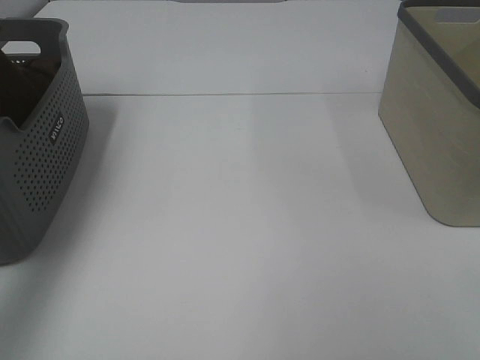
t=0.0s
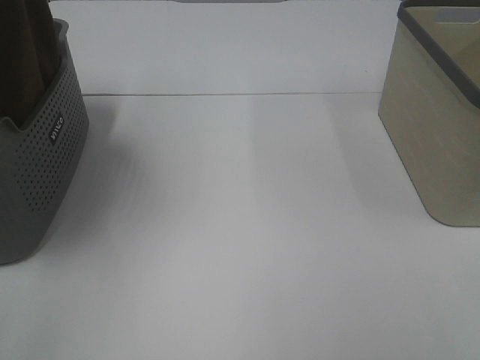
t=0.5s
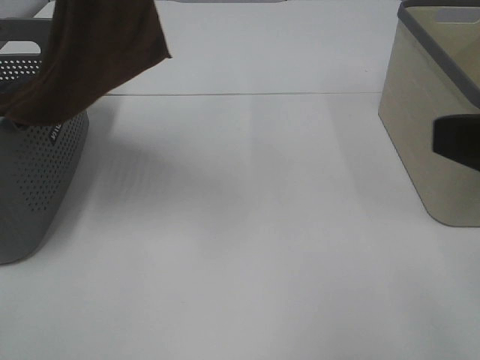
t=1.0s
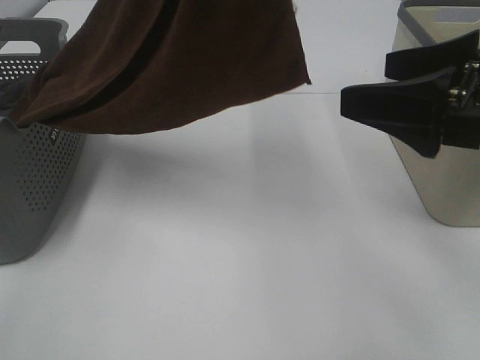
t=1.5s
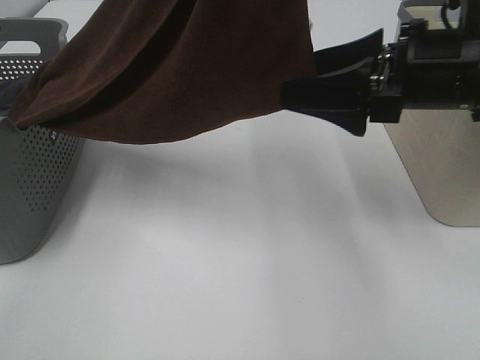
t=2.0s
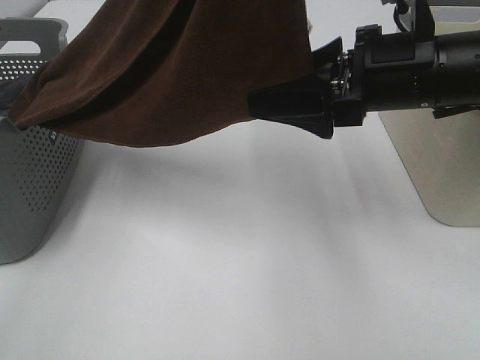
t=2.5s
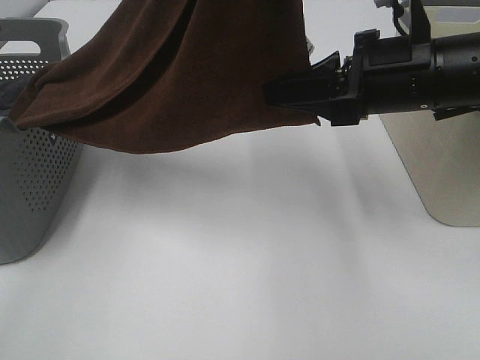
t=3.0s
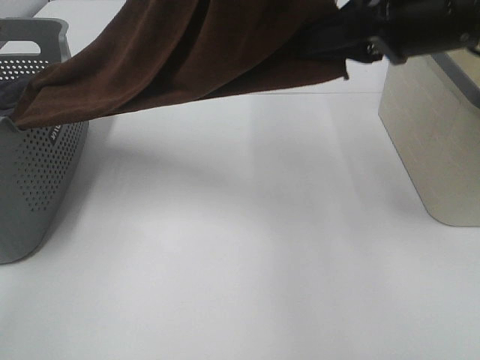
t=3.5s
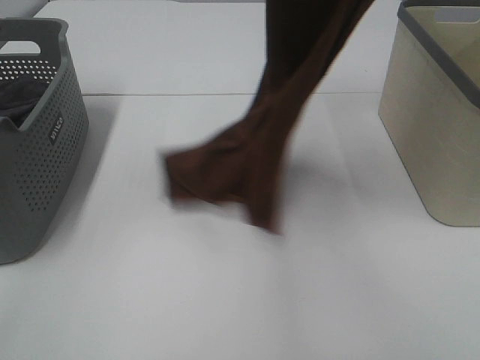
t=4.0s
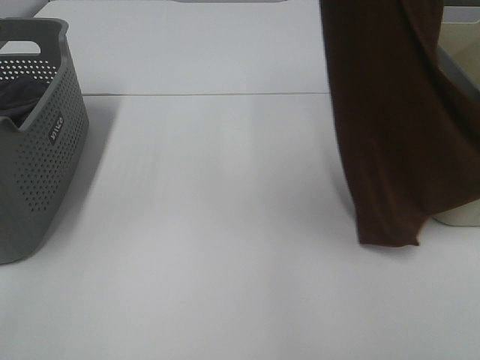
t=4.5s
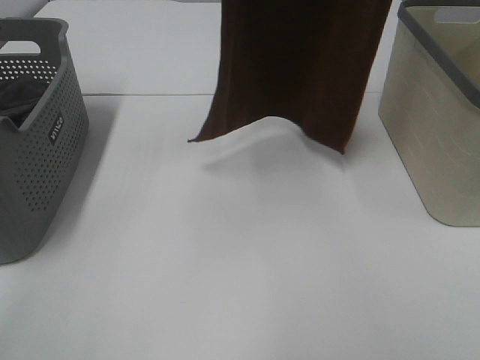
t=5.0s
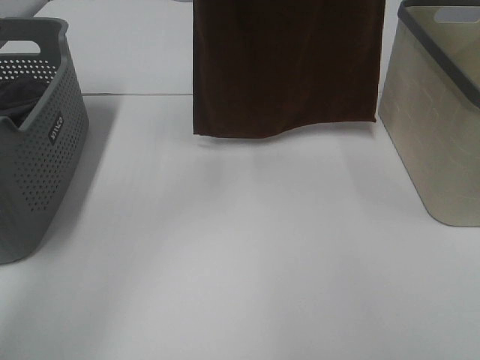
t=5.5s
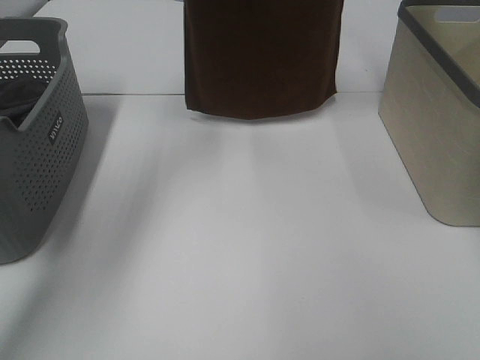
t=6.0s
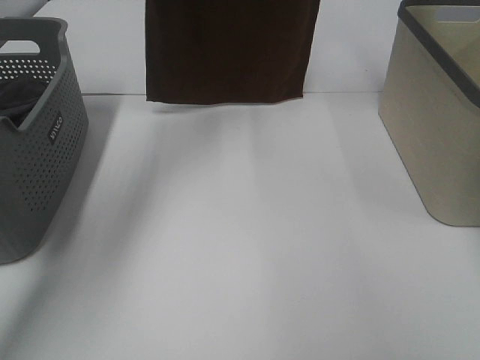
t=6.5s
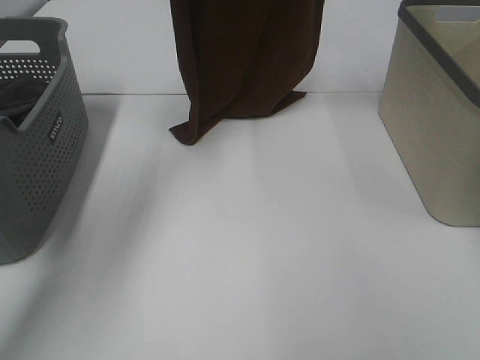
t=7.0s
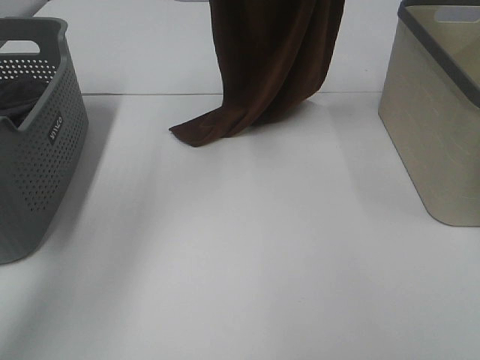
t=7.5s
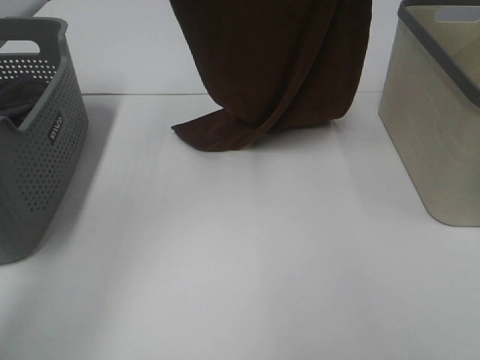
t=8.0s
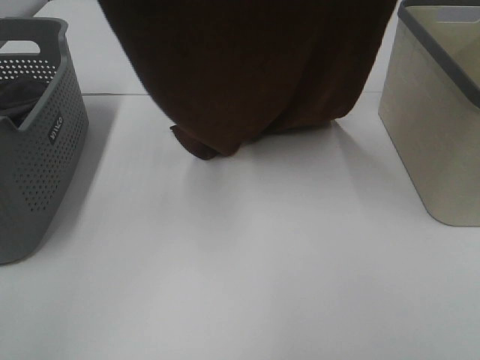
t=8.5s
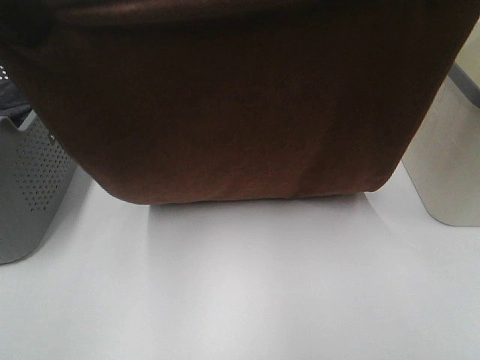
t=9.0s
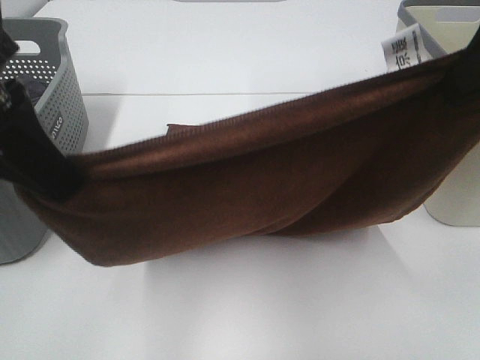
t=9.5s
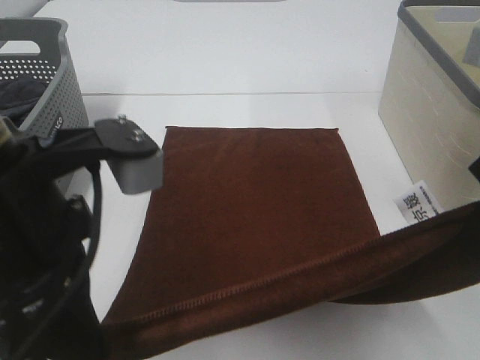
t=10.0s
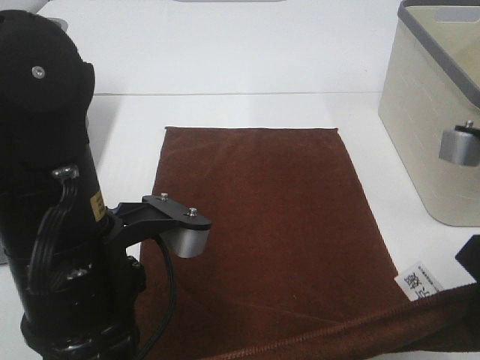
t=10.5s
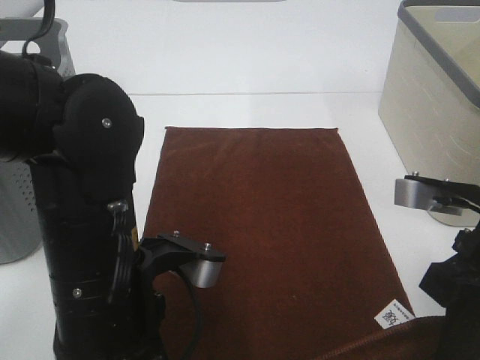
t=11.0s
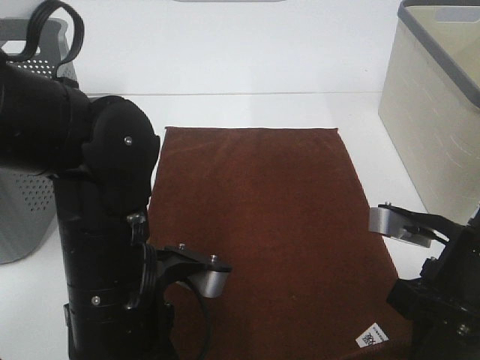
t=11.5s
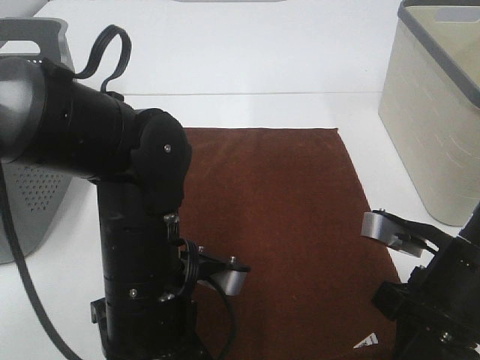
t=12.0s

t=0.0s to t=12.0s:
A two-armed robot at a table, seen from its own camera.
Task of the whole recording: Remove the towel and place it.
Step, t=0.0s to t=2.0s: Right hand: grab a corner of the brown towel and straighten it.
Step, t=2.5s to t=9.5s: Left hand: spread the brown towel flat on the table.
Step, t=2.5s to t=9.5s: Right hand: spread the brown towel flat on the table.
t=0.0s to t=2.0s: The right gripper heads forward, covering some 25 cm; the left gripper is displaced to the right by roughly 25 cm.
t=2.0s to t=4.0s: The right gripper shifts some 25 cm upward, and closes up.
t=4.0s to t=6.0s: The grippers both shift forward by roughly 20 cm.
t=6.0s to t=8.0s: Both grippers travel together backward, some 10 cm.
t=8.0s to t=10.0s: Both grippers move backward and downward, approximately 30 cm.
t=10.0s to t=12.0s: The right gripper is displaced downward by roughly 15 cm; the left gripper goes some 15 cm downward and to the right.

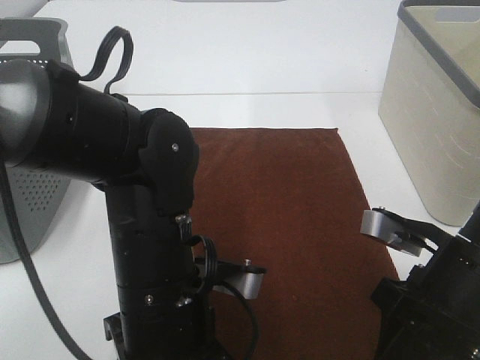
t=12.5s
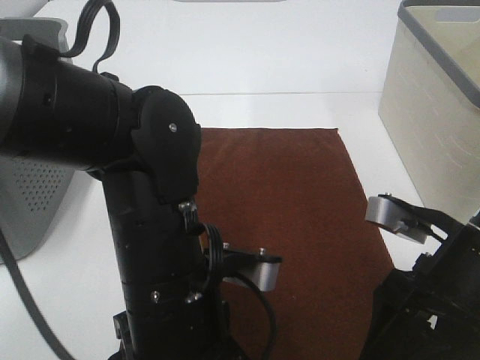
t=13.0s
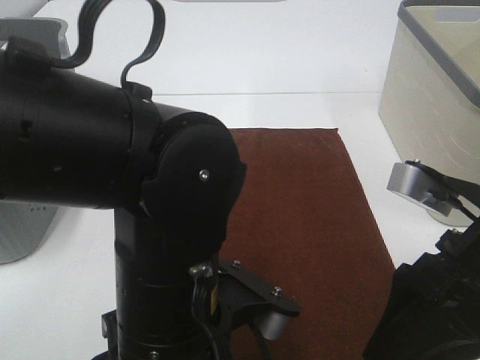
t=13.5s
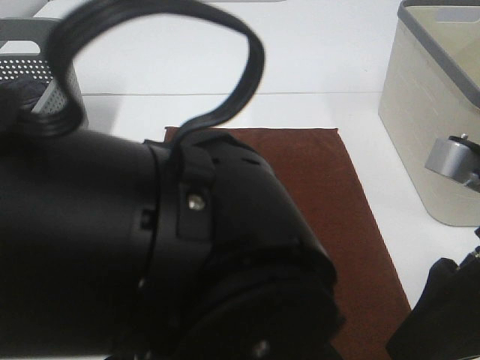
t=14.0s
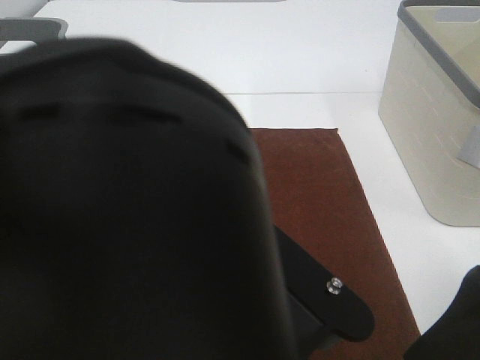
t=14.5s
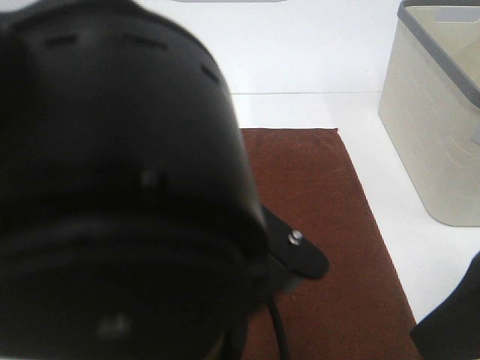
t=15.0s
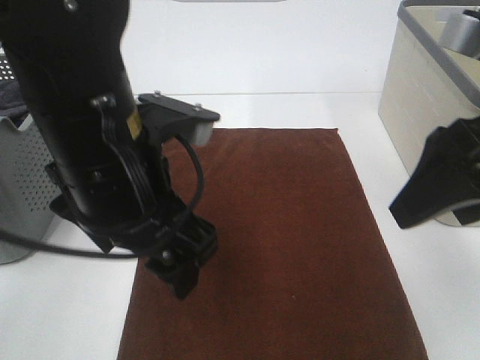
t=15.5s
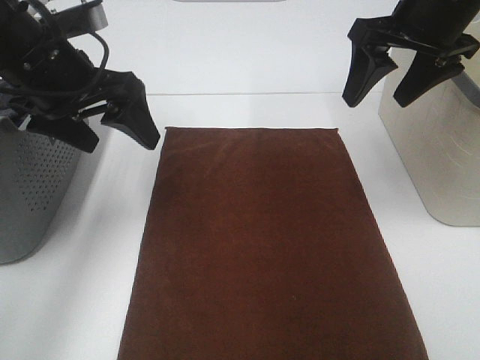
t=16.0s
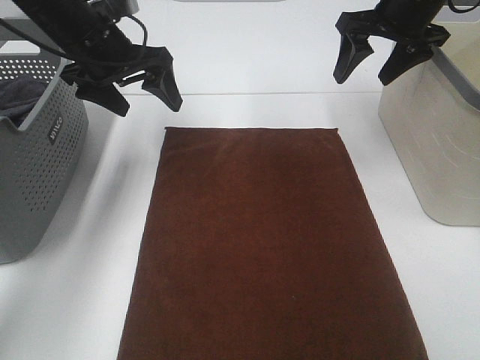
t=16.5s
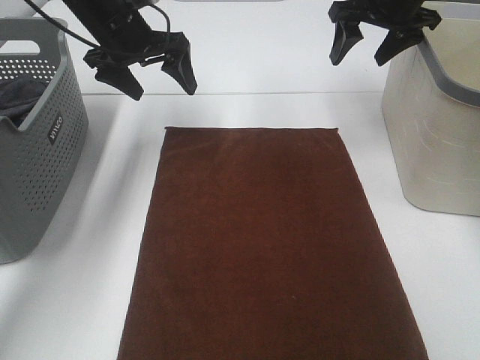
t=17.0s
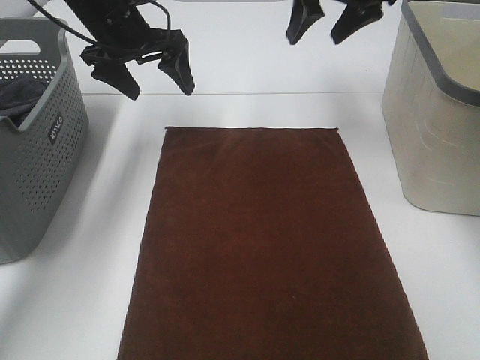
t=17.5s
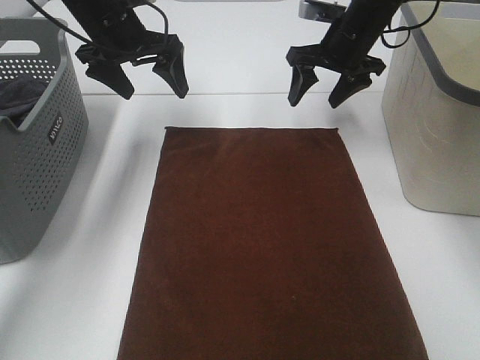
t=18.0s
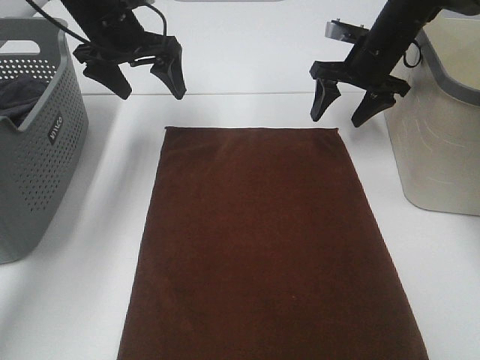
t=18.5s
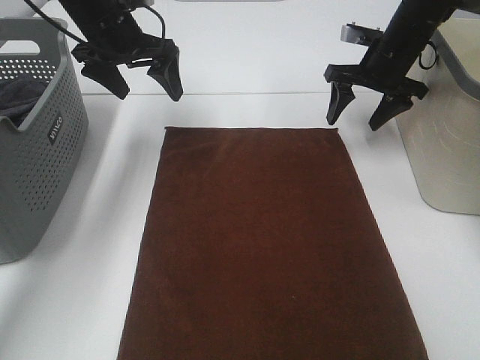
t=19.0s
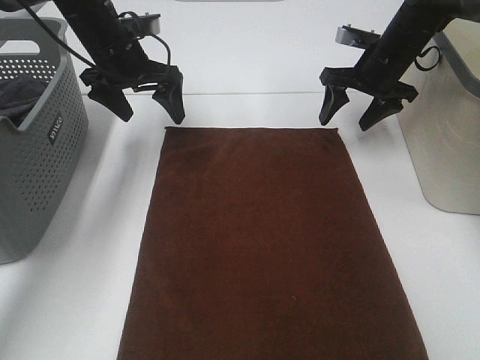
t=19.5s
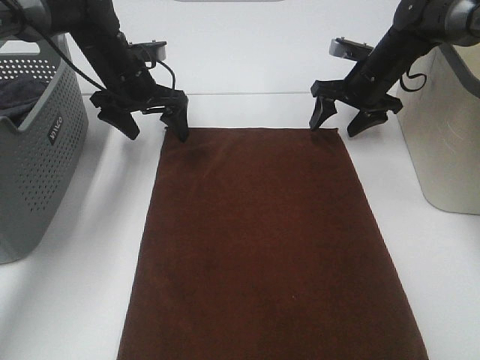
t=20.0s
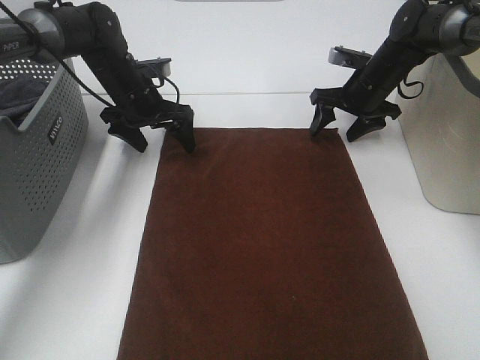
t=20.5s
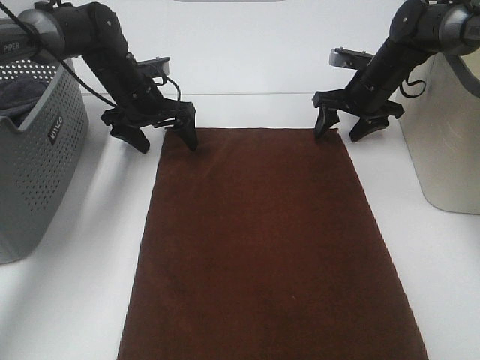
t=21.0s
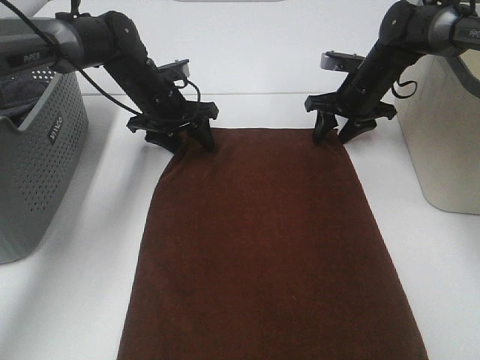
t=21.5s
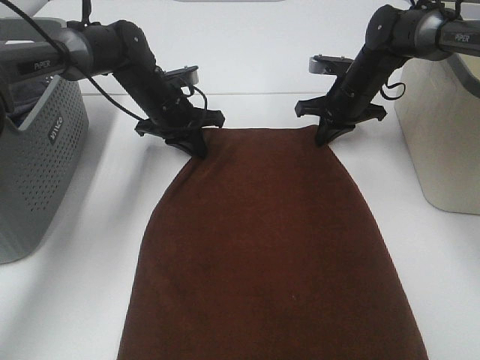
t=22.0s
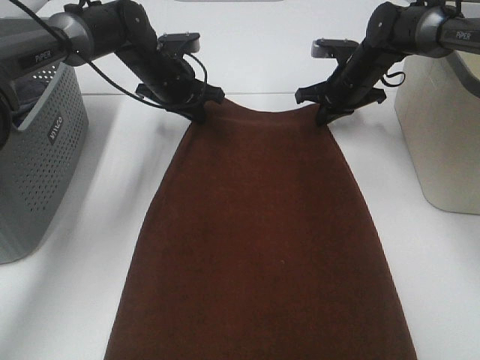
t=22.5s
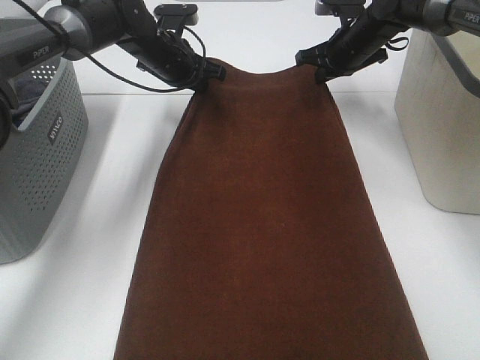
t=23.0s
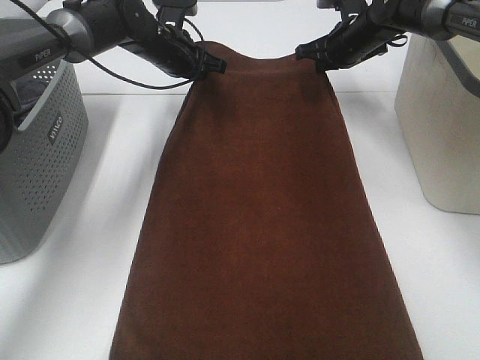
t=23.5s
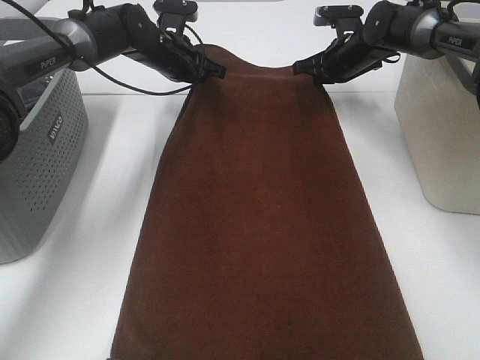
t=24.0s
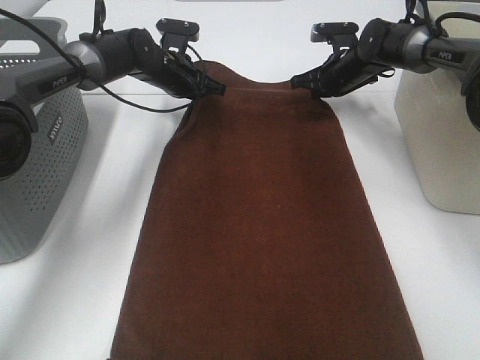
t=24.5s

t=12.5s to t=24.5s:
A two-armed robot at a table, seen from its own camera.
Task of the whole recording: Remove the towel and place it.
Step, t=12.5s to t=20.0s: Left hand:adjust the brown towel.
Step, t=12.5s to t=20.0s: Right hand:adjust the brown towel.
t=12.5s to t=14.5s: The right gripper shifts roughly 10 cm upward and backward. Meanwhile the left gripper heads backward and upward, covering some 15 cm, and opens its fingers.
t=14.5s to t=16.5s: The left gripper goes approximately 40 cm forward and to the left, while the right gripper is displaced forward by roughly 35 cm.
t=16.5s to t=18.5s: The right gripper is displaced downward by about 10 cm.
t=18.5s to t=20.5s: The right gripper is displaced downward by some 5 cm. Meanwhile the left gripper moves downward, some 10 cm.
t=20.5s to t=22.5s: The right gripper closes its fingers; the left gripper shifts by roughly 5 cm, and closes.

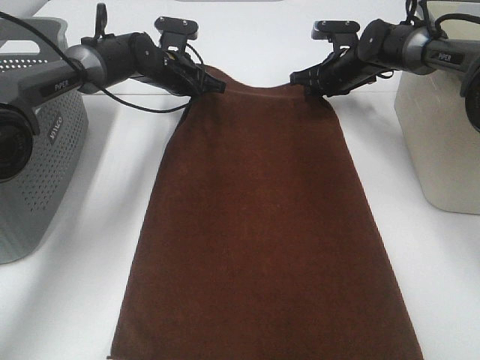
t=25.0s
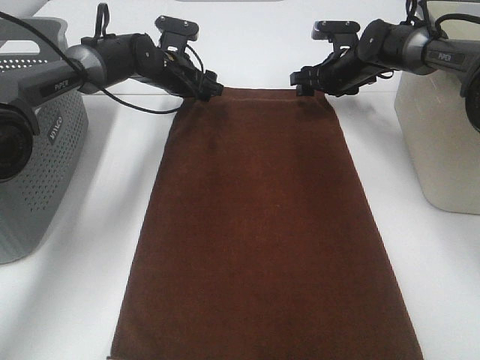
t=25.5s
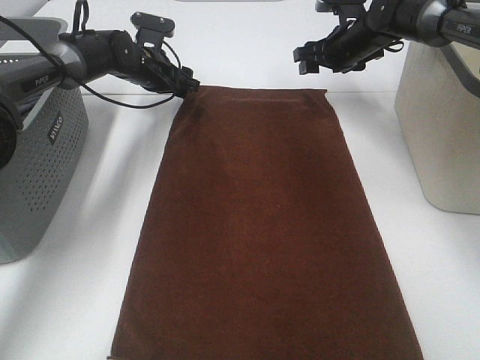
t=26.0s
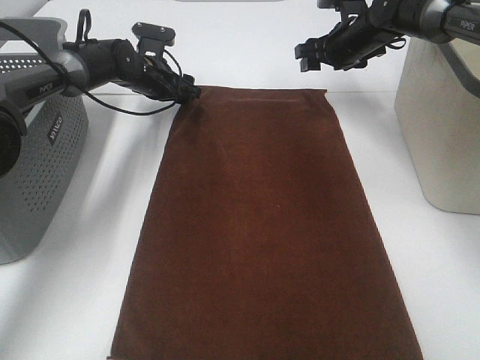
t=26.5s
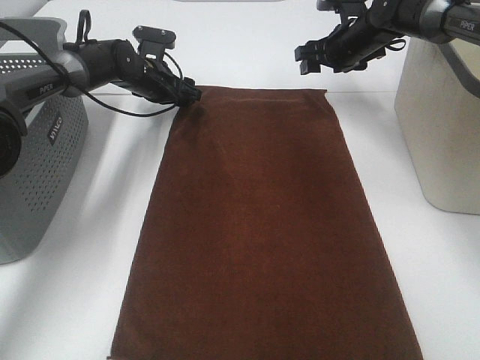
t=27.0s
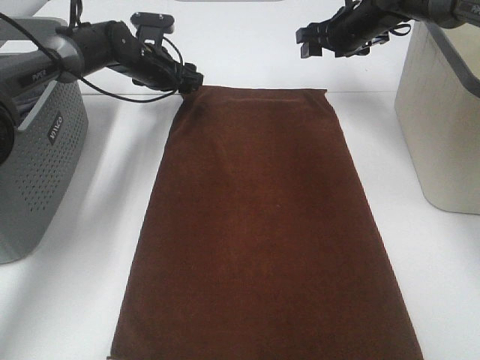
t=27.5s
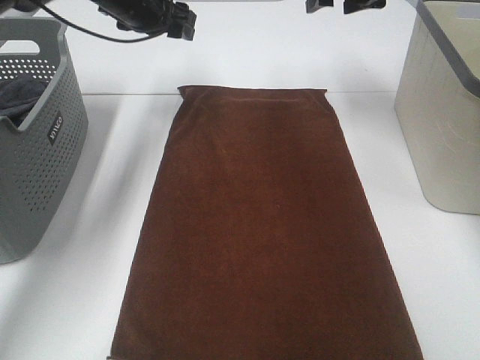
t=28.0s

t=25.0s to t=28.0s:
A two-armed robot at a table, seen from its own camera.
Task of the whole recording: Remove the towel and place it.
t=25.0s to t=26.5s: The right gripper is displaced upward by approximately 5 cm; the left gripper opens its fingers.
t=26.5s to t=28.0s: Both grippers travel together upward, roughly 15 cm.
